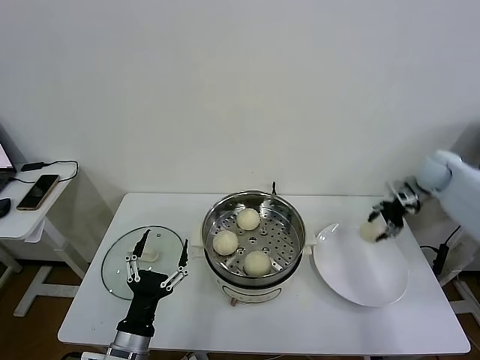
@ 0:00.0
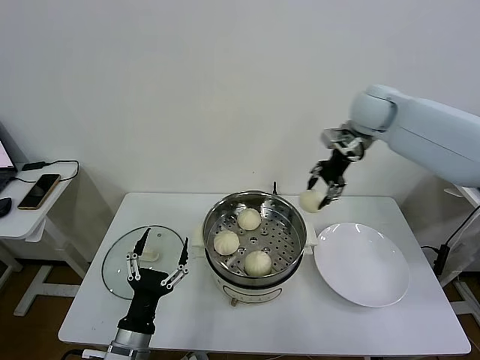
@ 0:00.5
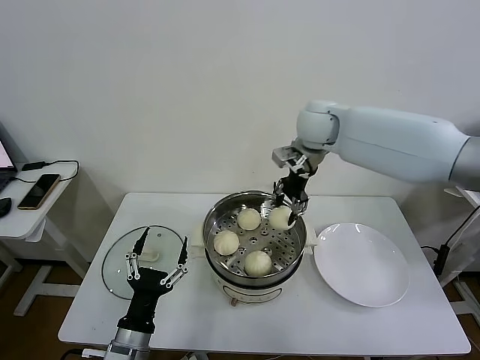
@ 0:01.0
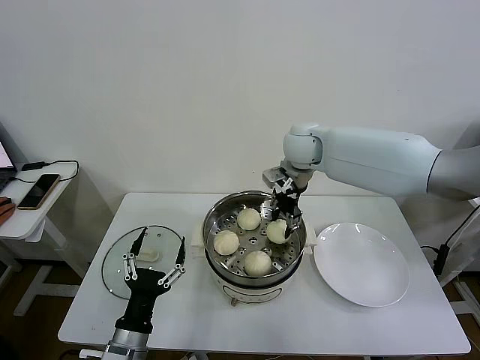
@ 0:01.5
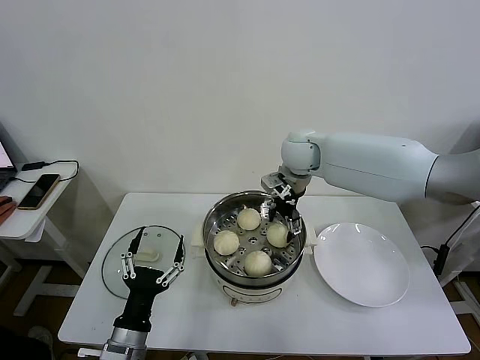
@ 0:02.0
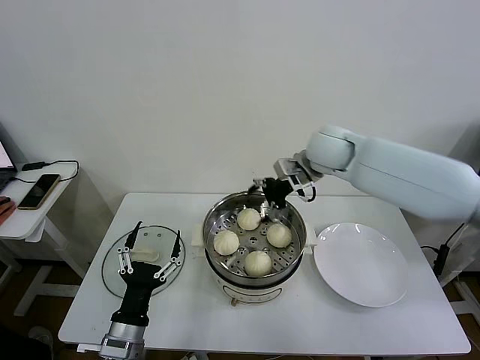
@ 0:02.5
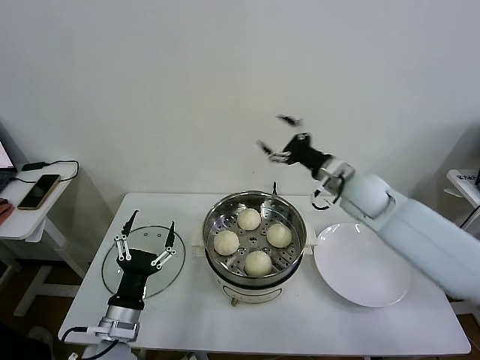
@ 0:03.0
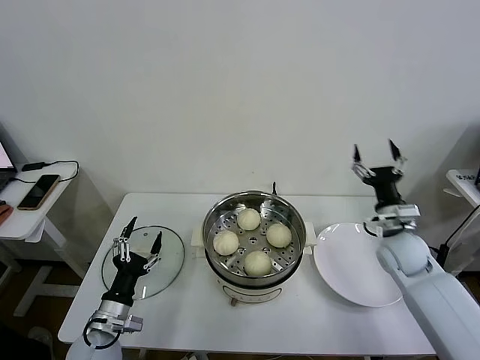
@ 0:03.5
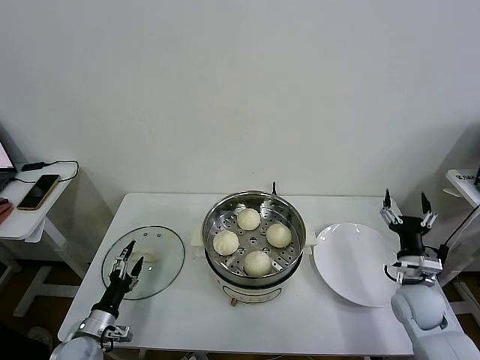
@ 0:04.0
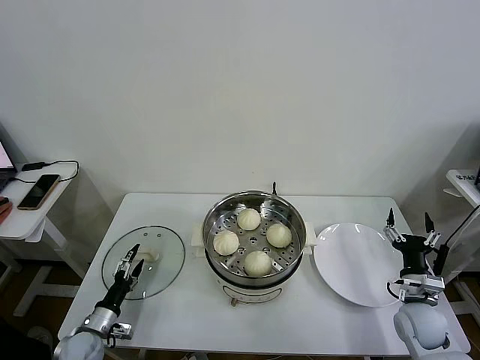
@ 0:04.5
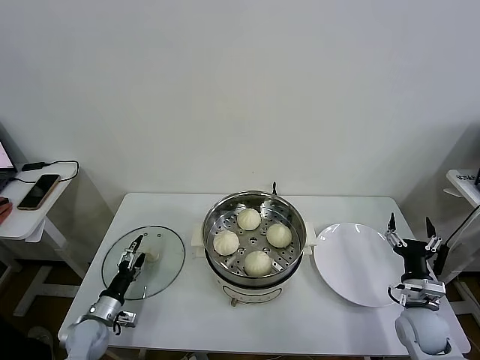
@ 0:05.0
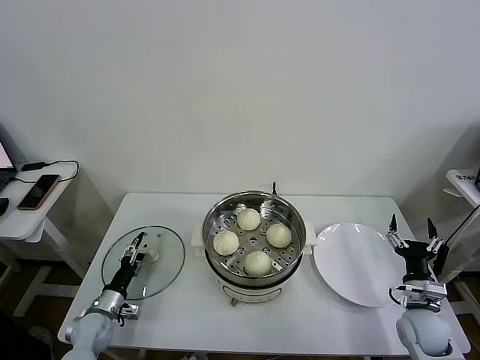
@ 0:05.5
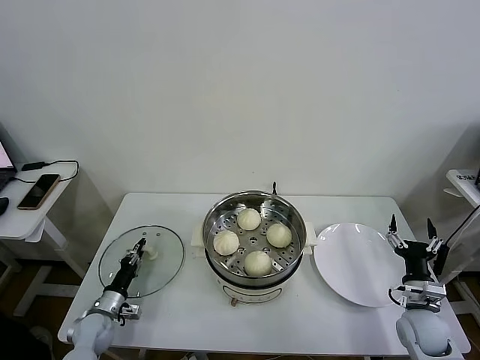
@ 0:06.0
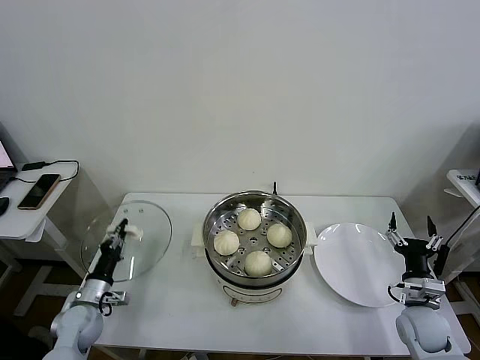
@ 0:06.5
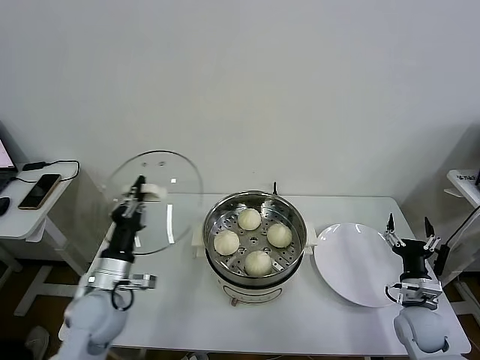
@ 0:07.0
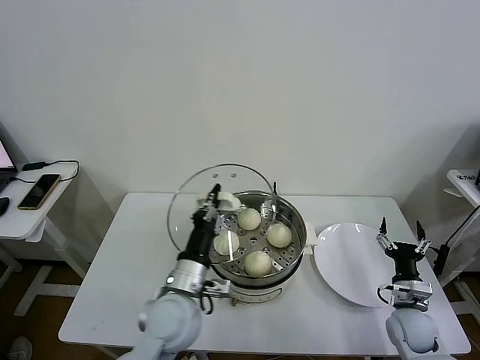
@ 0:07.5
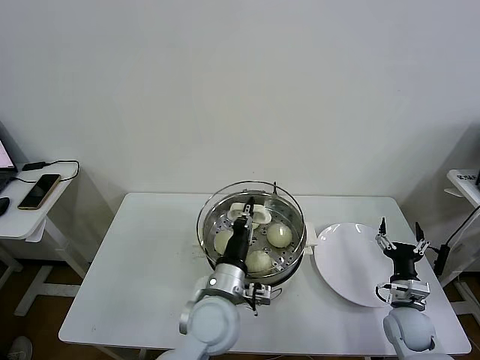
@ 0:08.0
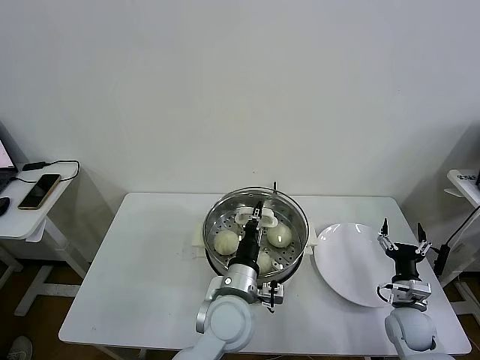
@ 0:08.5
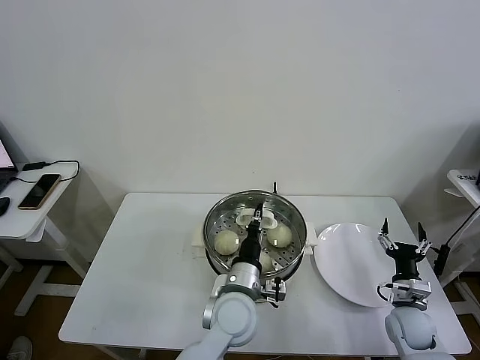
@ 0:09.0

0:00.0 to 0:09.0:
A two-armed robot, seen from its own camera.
Task of the whole recording: take steamed baozi put them in steamer then cover it.
Step, 0:00.0 to 0:01.5: Place the baozi on the steamer with right gripper.
Step, 0:02.0 to 0:06.0: Grasp the pot lid with left gripper.
0:00.0 to 0:02.0: The right gripper travels to the left by approximately 35 cm, and opens its fingers.
0:02.0 to 0:04.5: The left gripper goes approximately 25 cm to the left, downward and forward; the right gripper is displaced backward, downward and to the right by some 50 cm.
0:04.5 to 0:07.0: The left gripper is displaced upward and to the right by roughly 20 cm, and closes.
0:07.0 to 0:09.0: The left gripper moves to the right, roughly 25 cm.

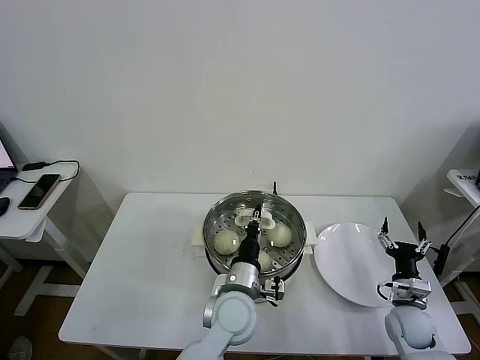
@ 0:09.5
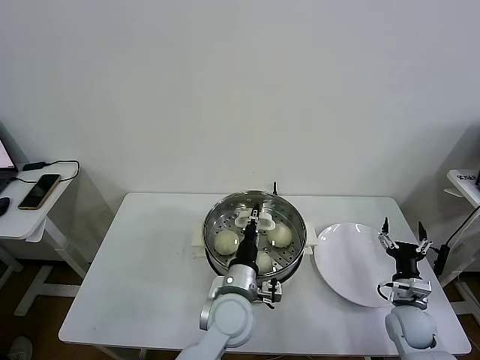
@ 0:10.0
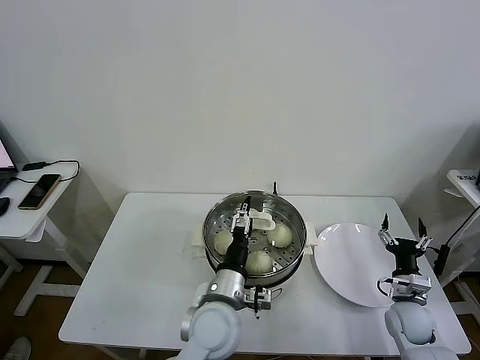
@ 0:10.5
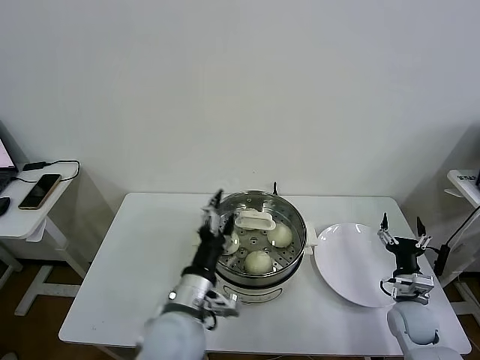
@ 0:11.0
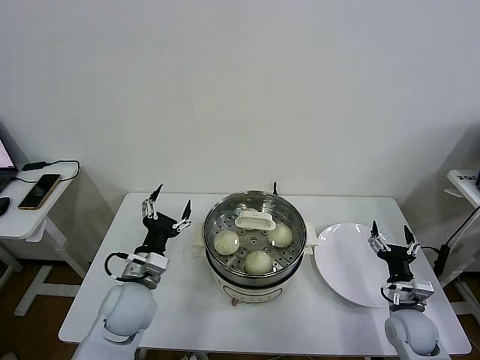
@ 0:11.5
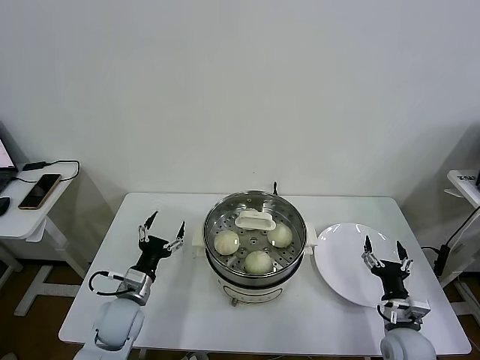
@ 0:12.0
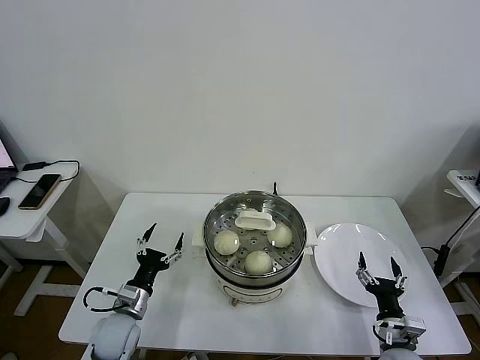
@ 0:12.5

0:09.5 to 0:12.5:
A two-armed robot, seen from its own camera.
Task of the whole recording: take steamed baozi put them in steamer then cover it.
0:09.5 to 0:11.0: The left gripper is displaced to the left, backward and upward by some 10 cm, and opens.
0:11.0 to 0:12.5: The left gripper shifts approximately 25 cm to the left and downward, while the right gripper moves backward and to the left, approximately 10 cm.
